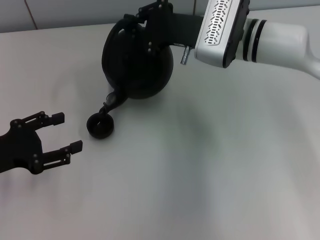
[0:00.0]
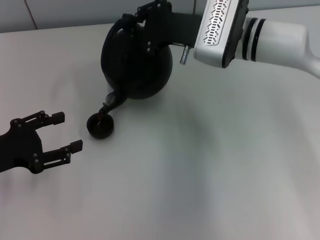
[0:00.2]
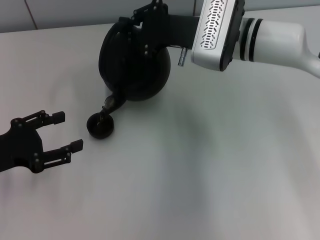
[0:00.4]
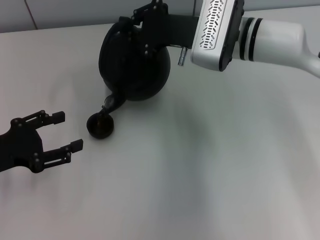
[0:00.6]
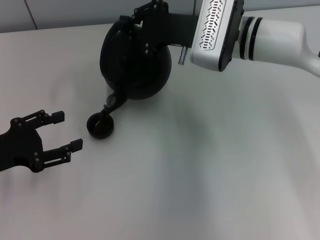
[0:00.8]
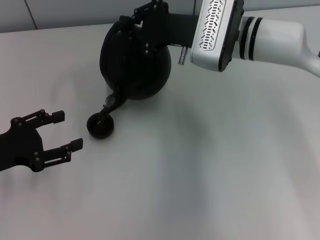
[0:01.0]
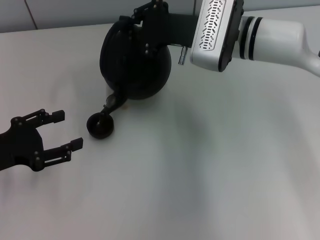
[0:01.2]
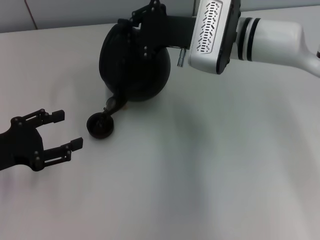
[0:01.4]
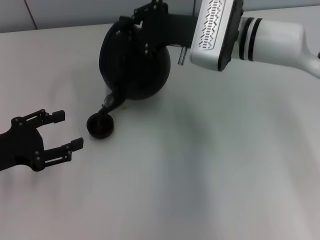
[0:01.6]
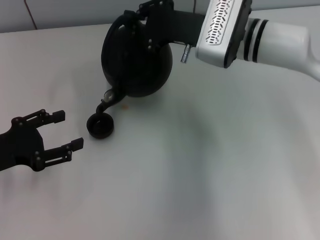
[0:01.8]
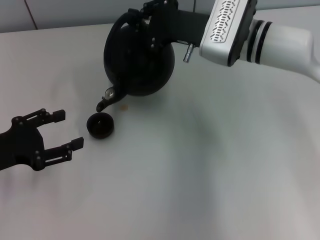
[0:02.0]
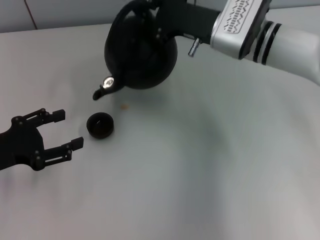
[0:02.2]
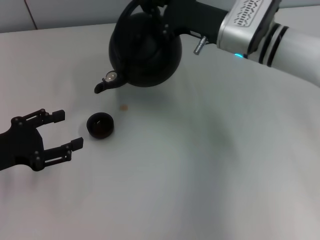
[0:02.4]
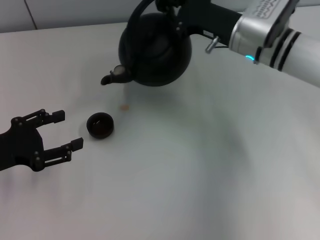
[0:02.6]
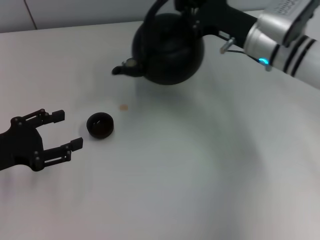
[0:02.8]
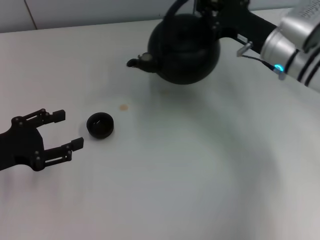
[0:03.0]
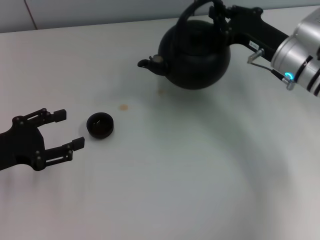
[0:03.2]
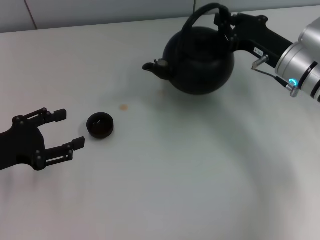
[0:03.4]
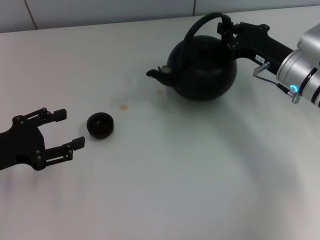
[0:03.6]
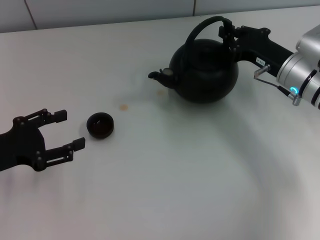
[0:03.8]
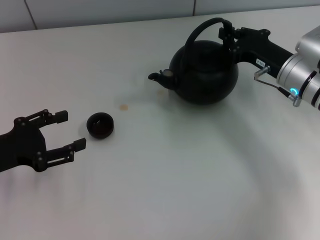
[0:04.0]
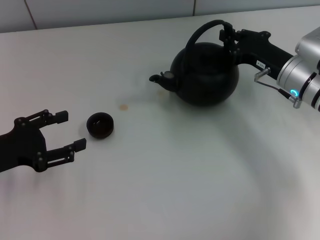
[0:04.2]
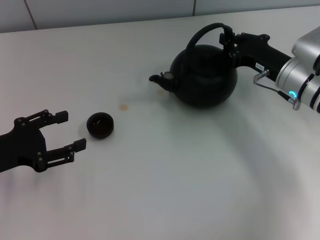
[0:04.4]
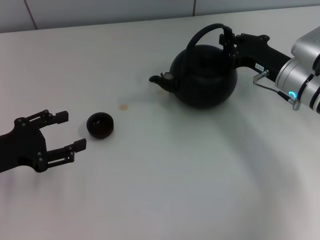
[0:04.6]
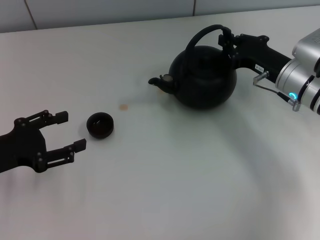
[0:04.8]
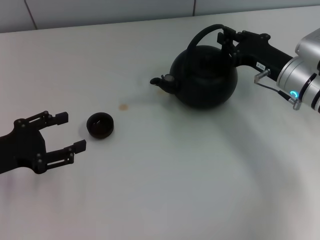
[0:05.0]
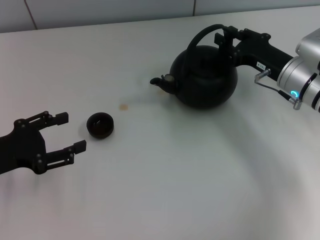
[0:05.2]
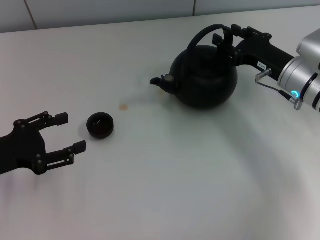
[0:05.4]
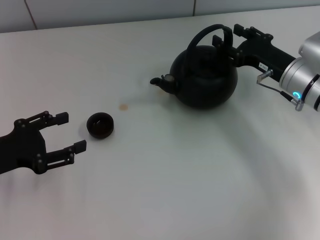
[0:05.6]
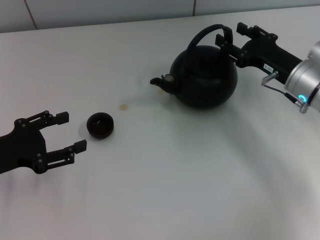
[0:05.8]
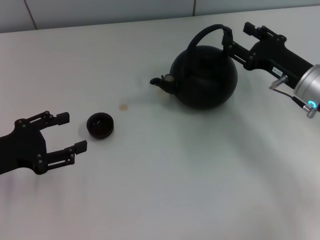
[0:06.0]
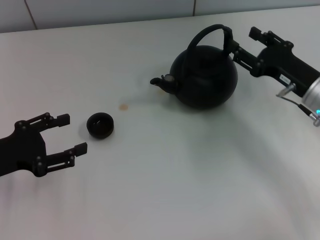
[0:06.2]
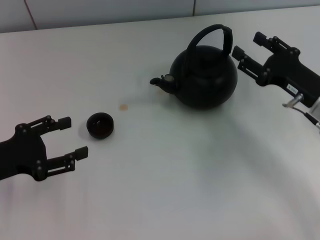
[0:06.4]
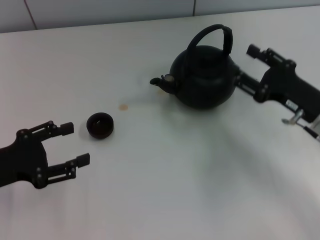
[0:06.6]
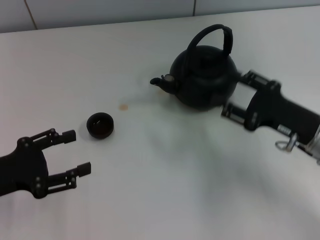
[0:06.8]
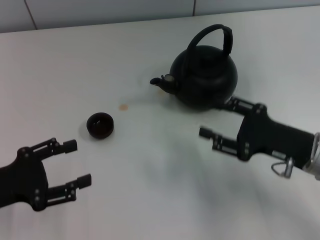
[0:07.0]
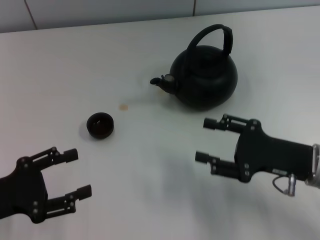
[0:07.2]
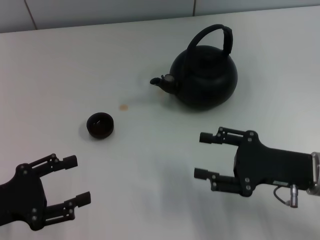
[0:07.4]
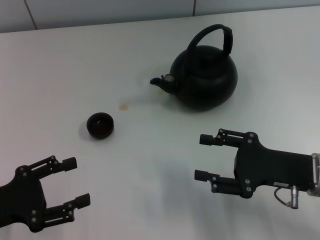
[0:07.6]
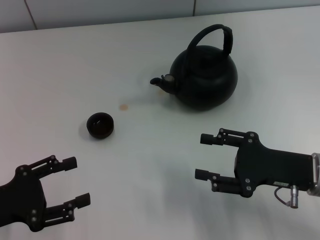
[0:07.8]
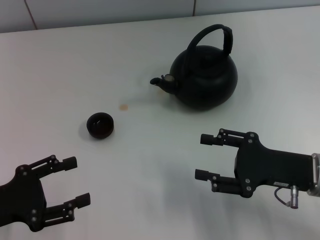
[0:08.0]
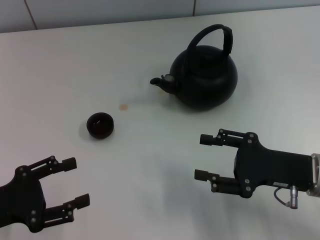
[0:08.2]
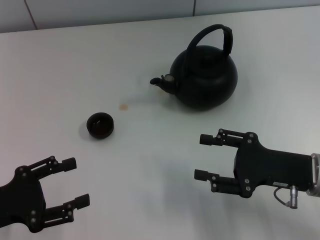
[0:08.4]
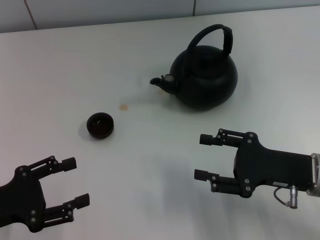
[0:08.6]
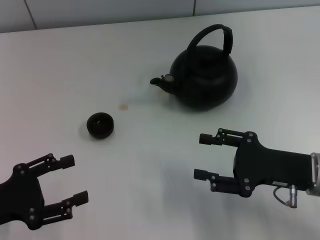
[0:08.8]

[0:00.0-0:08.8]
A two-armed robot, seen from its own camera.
Task of the whole recording: Grasp the handle of the teapot with one hand and pour tea into the teacup.
Step, 0:02.4 to 0:06.4: Put down the teapot with the right gripper.
0:00.0 to 0:01.4: There are only small adjustments of the grippers.
0:01.4 to 0:03.0: The right gripper moves to the right, some 10 cm.
0:03.0 to 0:04.4: The right gripper shifts by approximately 5 cm.
0:04.4 to 0:05.8: The right gripper opens up.
0:05.8 to 0:07.4: The right gripper heads backward, covering roughly 10 cm, while the left gripper goes roughly 5 cm backward.
0:07.4 to 0:08.8: Both grippers stay about where they are.

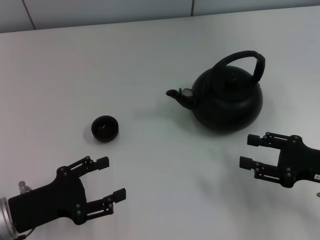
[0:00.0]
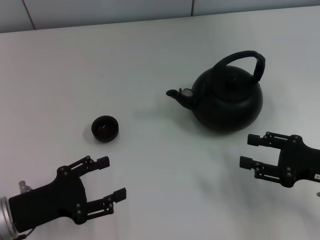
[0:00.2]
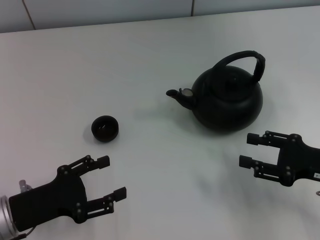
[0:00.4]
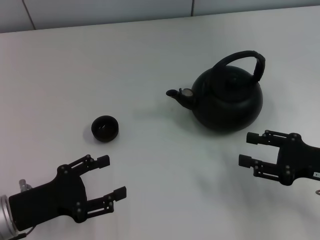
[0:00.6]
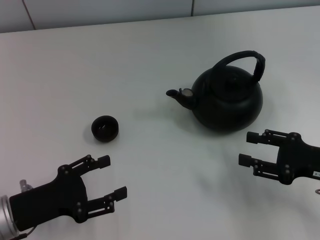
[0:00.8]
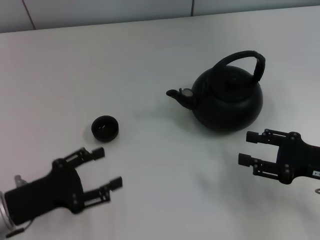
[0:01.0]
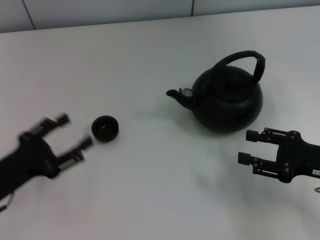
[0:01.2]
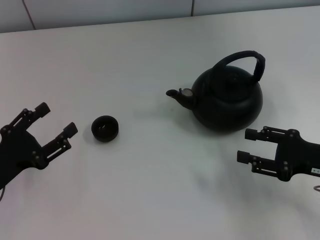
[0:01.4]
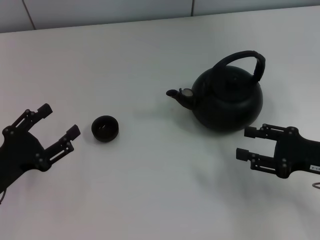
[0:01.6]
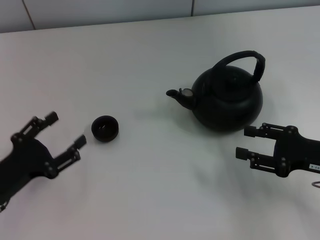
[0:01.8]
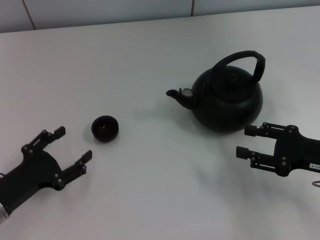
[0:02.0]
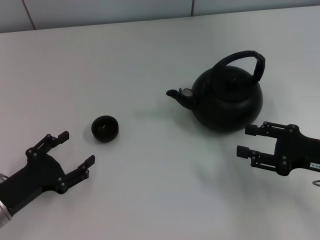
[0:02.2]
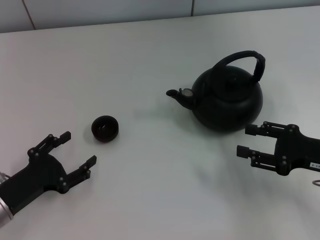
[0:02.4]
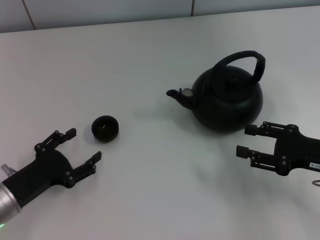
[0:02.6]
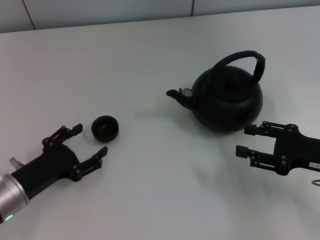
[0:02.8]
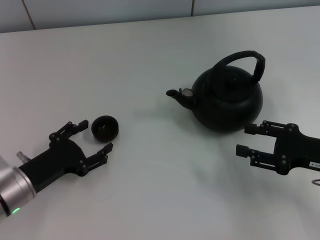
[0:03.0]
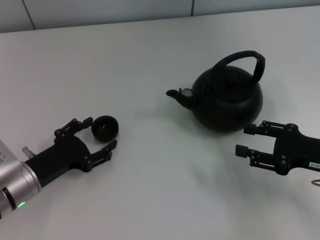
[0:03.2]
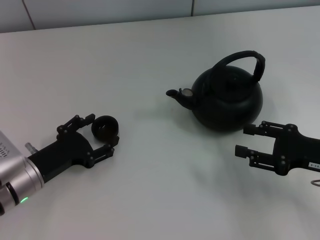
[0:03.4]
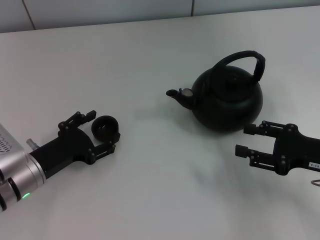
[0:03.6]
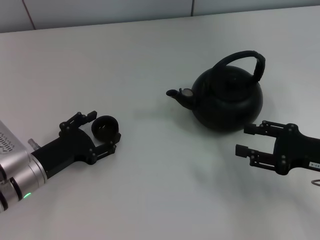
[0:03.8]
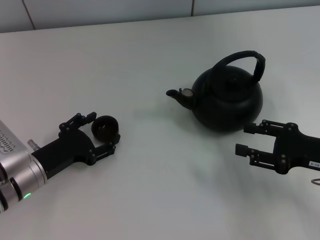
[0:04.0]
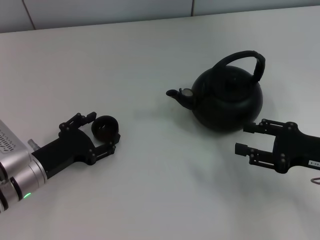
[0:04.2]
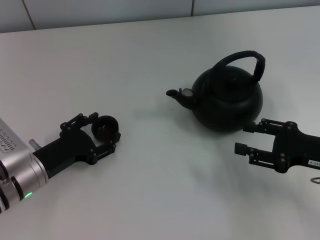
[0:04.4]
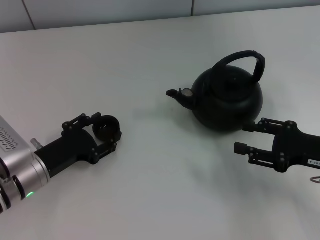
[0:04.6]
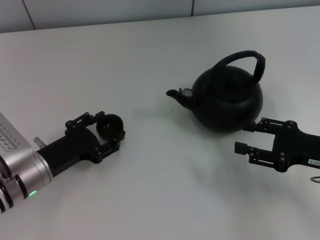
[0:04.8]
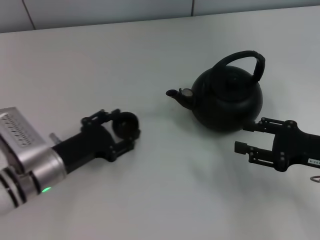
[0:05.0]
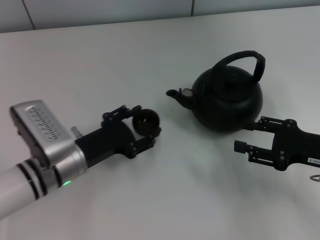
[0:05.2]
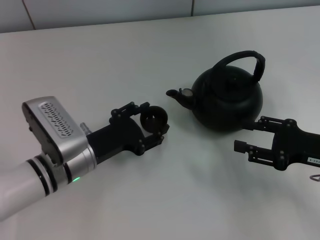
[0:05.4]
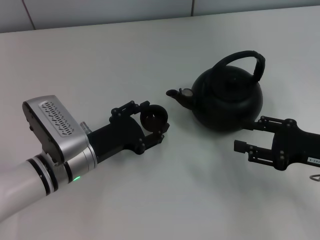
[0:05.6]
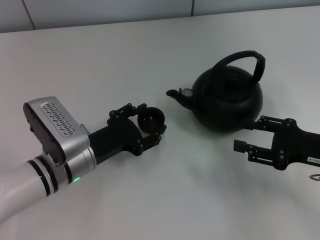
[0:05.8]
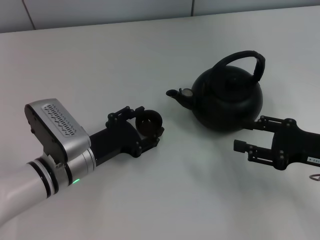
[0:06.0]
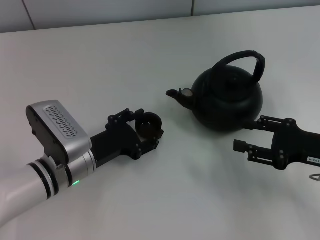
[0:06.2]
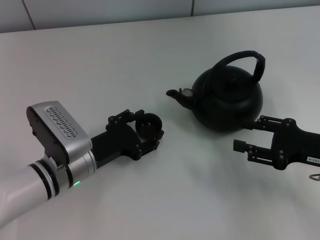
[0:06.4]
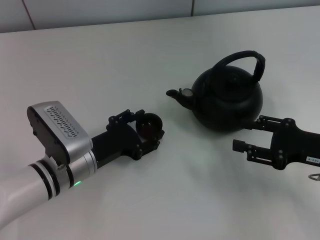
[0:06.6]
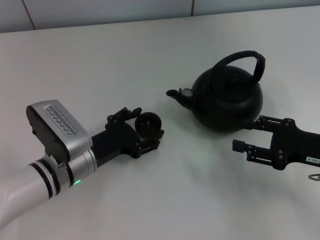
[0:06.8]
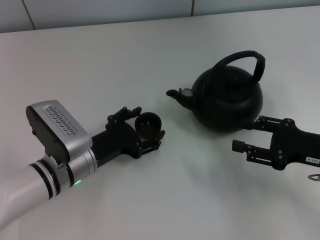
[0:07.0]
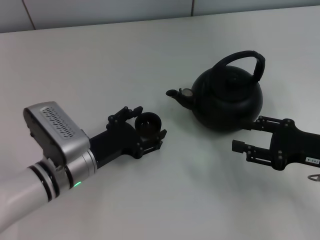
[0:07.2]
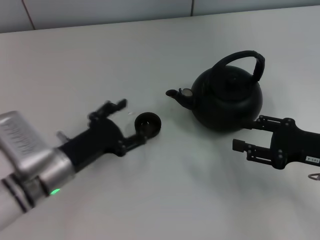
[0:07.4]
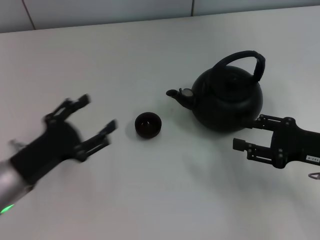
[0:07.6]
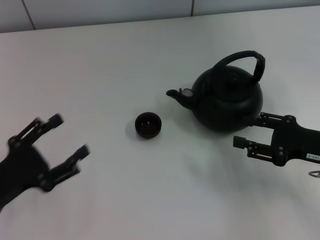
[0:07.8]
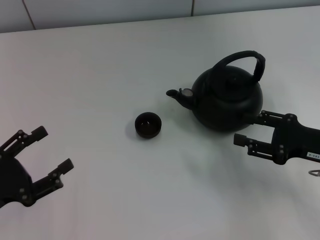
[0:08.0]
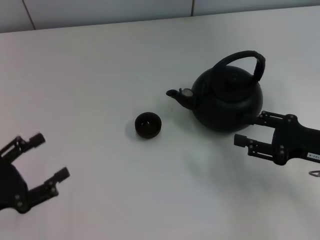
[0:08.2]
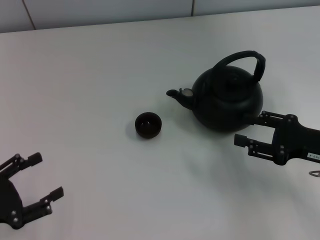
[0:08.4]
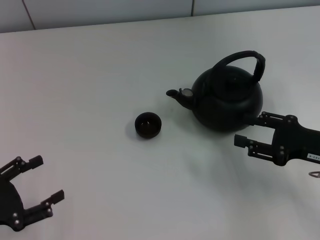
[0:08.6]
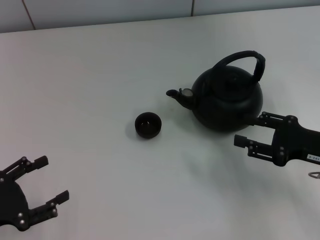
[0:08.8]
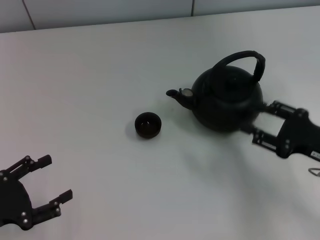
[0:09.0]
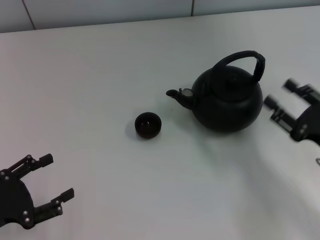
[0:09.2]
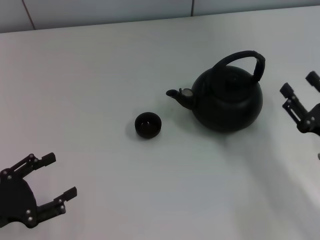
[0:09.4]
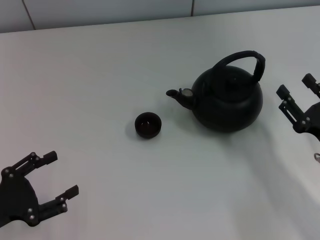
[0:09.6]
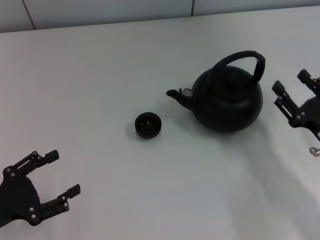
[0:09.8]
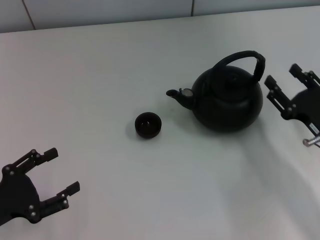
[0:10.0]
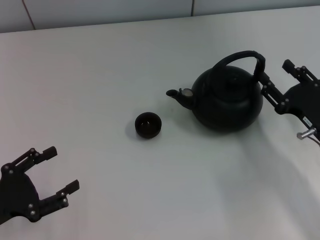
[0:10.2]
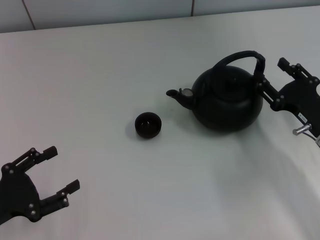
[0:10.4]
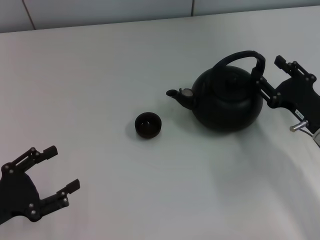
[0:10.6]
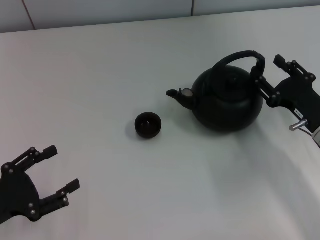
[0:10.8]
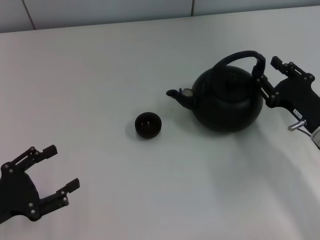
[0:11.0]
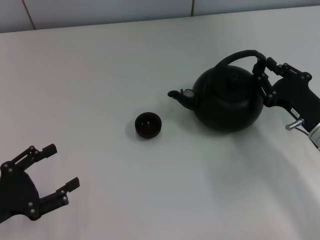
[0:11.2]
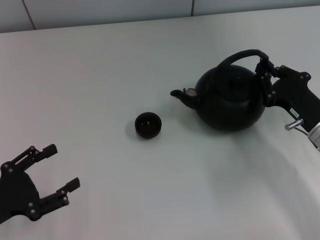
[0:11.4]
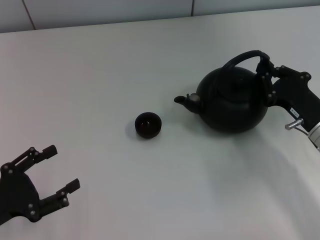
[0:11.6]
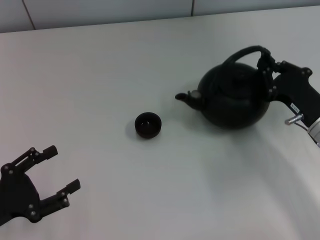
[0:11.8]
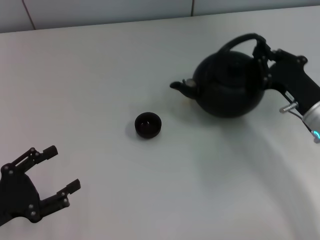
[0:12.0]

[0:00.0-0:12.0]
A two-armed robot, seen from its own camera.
Task of the whole recording: Grasp the handle of the teapot with one hand and pour tea into the teacup.
Step, 0:00.0 to 0:05.0: Pick up the teacup with the left gripper.
Step, 0:05.2 to 0:07.4: Place the teacup in the center of view with the left gripper.
Step, 0:07.8 to 0:12.0: Pick up the teapot with the right gripper.
0:01.6 to 0:03.0: The left gripper changes place by about 5 cm.
0:03.0 to 0:04.4: The grippers move only a little.
0:04.4 to 0:06.0: The left gripper heads to the right, covering about 5 cm, and closes up.
0:06.0 to 0:07.6: The left gripper moves to the left, approximately 10 cm, and opens up.
0:07.6 to 0:09.0: The left gripper goes roughly 10 cm to the left and backward.
0:10.4 to 0:12.0: The right gripper closes.

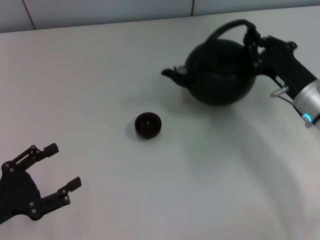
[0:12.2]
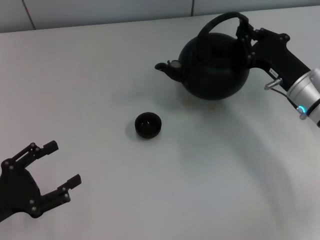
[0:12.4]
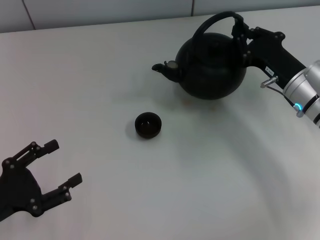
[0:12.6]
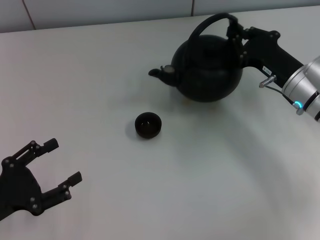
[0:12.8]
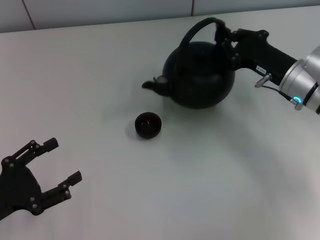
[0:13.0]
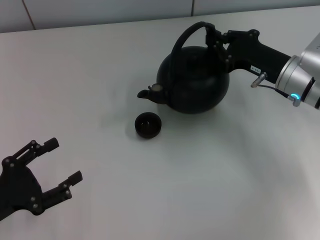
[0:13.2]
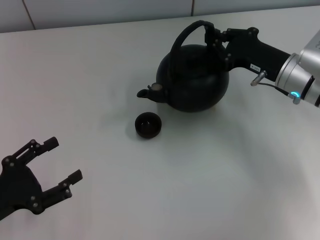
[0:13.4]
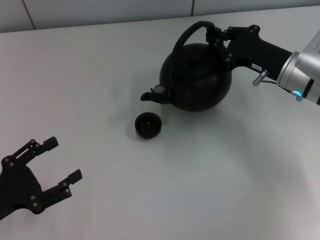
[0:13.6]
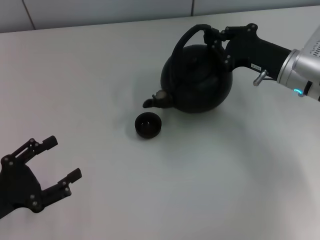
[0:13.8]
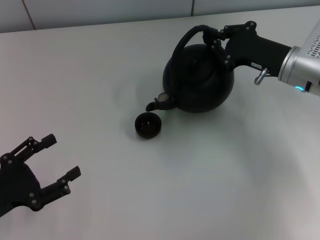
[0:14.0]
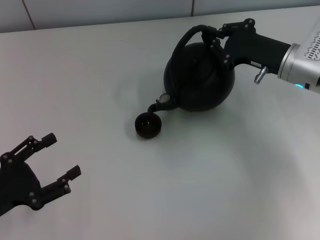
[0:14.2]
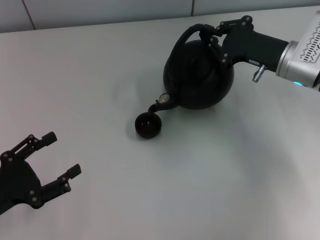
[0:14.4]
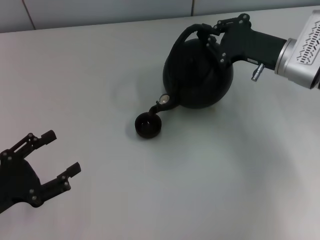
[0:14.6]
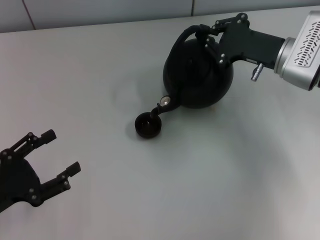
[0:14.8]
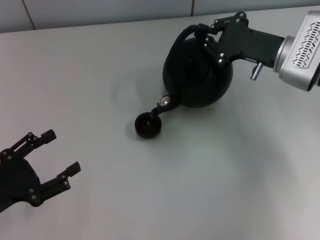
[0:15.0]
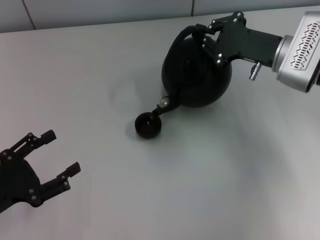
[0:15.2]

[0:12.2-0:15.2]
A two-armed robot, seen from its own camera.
Task of the whole recording: Grasp the handle of the teapot with one hand and pour tea into the teacup.
0:12.2 to 0:13.8: The right gripper shifts by roughly 5 cm.
